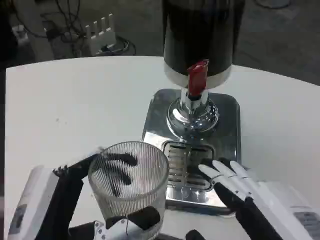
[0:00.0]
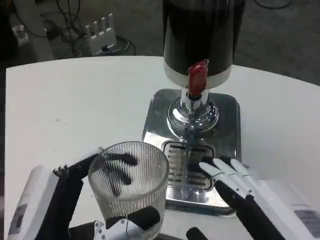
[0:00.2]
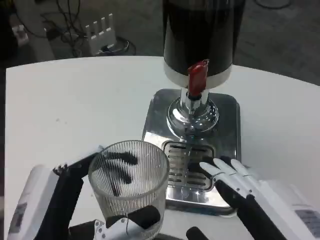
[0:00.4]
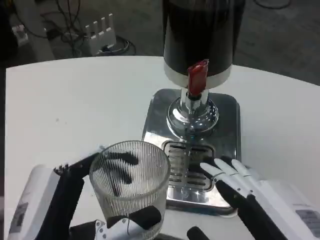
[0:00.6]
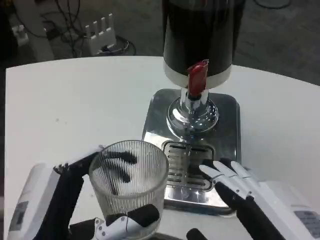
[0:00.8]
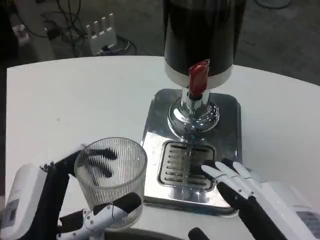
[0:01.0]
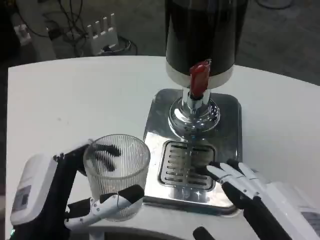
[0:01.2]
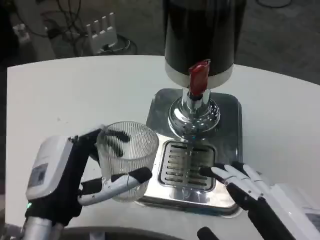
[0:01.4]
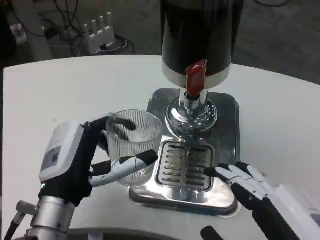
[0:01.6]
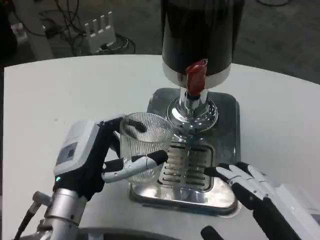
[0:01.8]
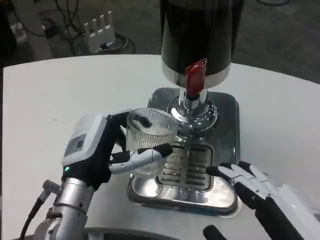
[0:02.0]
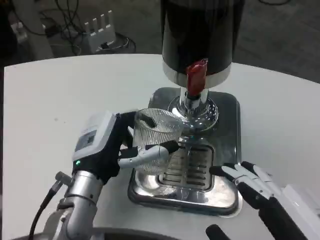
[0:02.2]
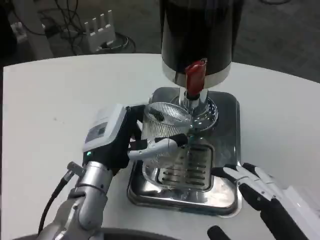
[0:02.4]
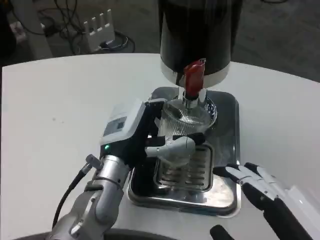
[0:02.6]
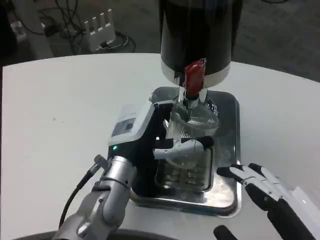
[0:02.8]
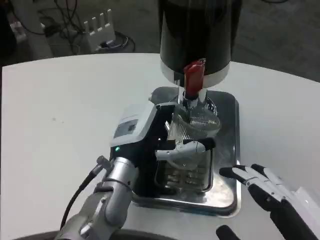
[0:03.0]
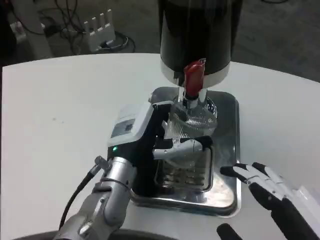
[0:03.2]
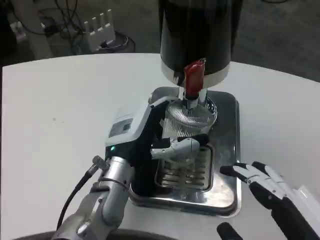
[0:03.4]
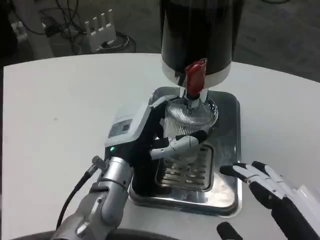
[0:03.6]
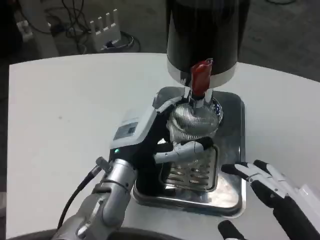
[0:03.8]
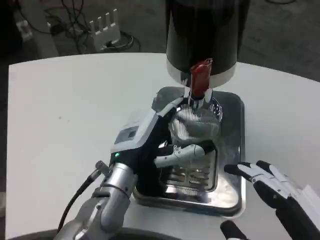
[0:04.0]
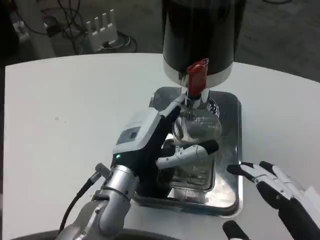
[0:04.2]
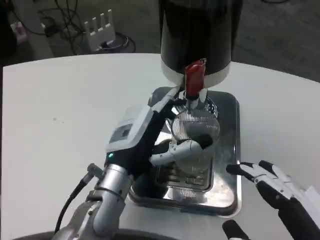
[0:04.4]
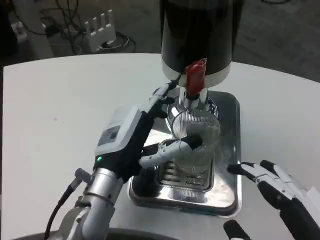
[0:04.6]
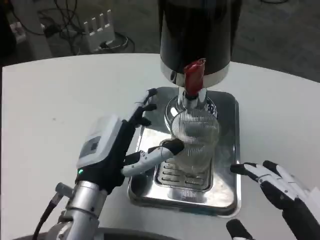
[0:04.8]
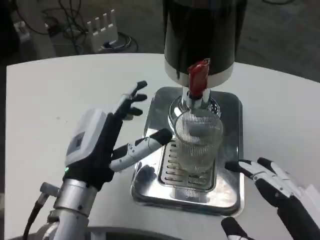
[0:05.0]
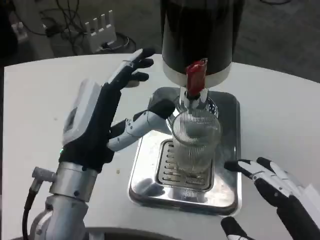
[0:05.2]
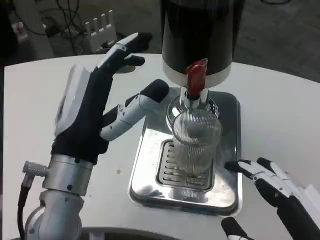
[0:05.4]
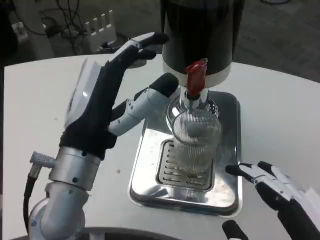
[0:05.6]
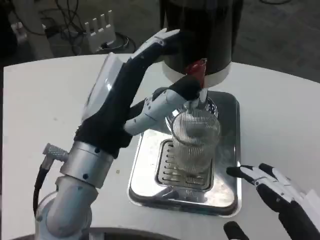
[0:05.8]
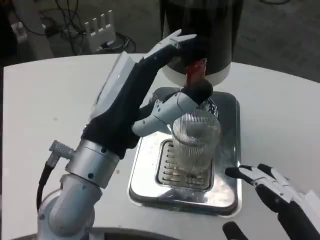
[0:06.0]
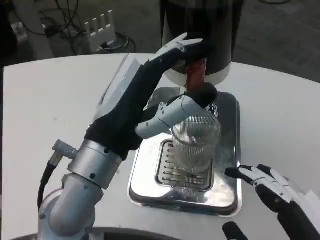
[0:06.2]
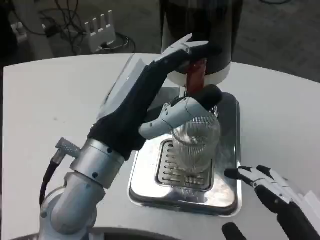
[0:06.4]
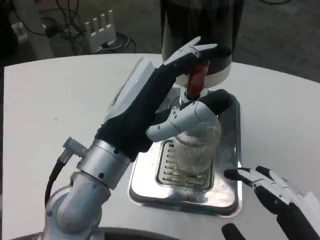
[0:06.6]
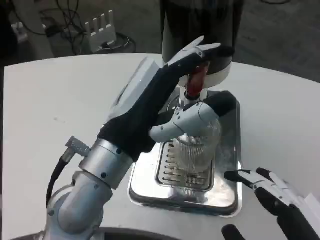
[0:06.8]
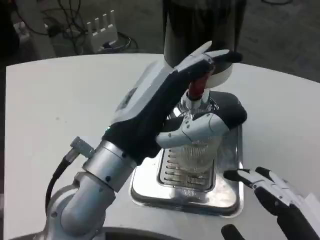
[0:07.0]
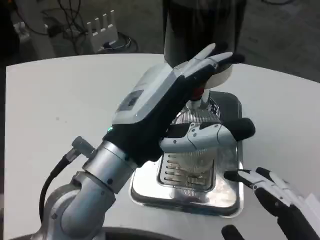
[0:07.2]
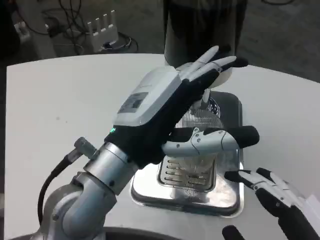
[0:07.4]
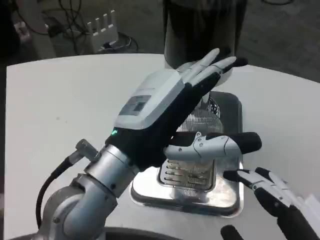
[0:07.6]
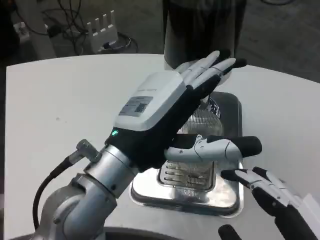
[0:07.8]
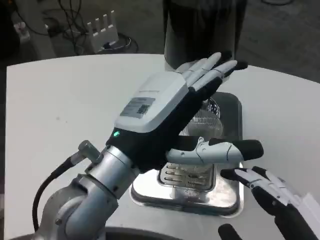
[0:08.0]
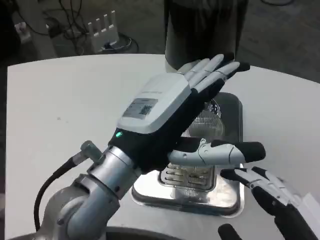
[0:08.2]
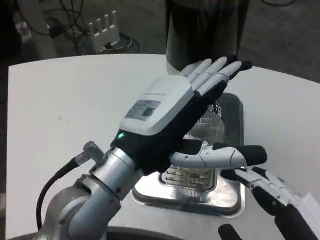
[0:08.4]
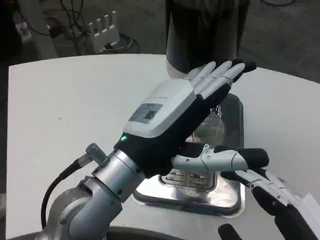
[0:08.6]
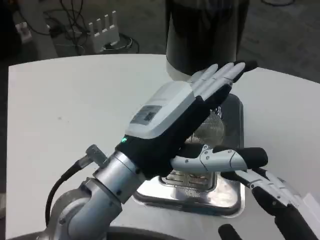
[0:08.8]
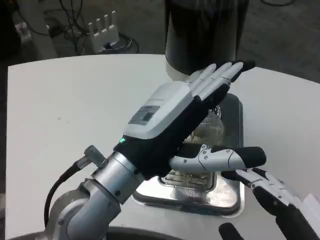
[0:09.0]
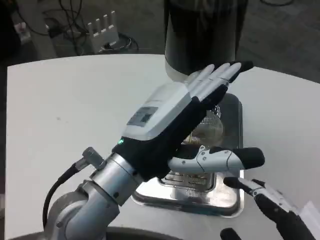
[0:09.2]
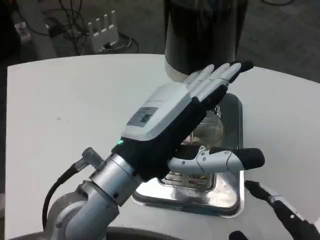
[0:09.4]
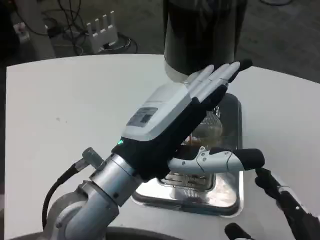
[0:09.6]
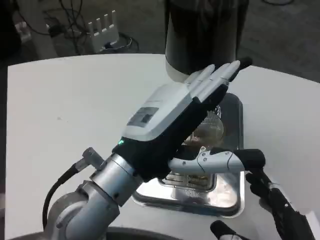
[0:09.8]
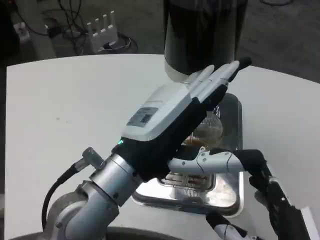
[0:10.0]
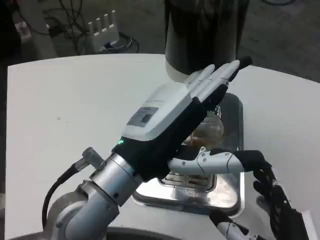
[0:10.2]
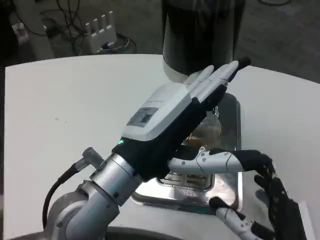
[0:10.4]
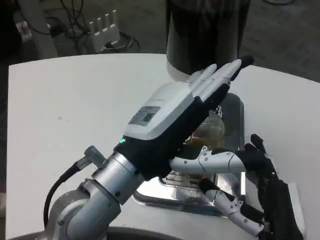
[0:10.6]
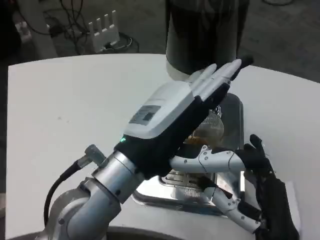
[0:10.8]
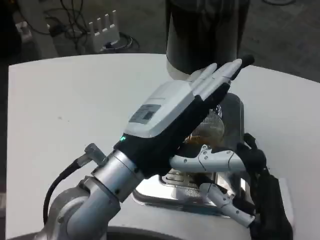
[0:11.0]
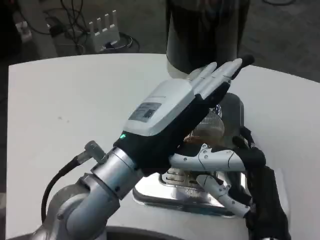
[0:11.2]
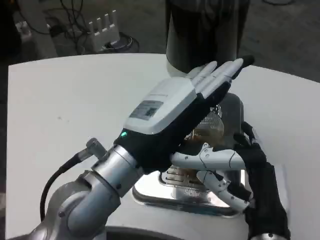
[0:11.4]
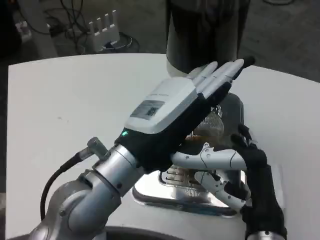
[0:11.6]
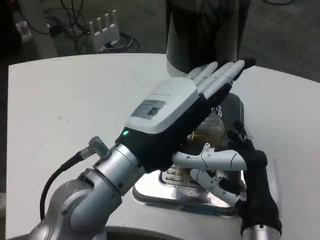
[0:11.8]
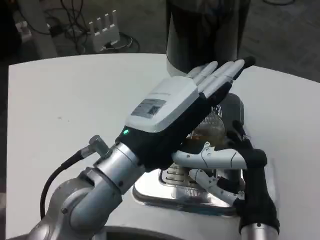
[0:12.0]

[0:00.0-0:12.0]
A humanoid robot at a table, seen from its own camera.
Task of the whole recording: Grasp the cup under the faucet to collect the drink, then remove the cup.
0.0 to 1.6 s: The left hand heads forward, covering roughly 10 cm.
1.6 to 3.0 s: The left hand shifts approximately 10 cm to the right and forward.
3.0 to 4.4 s: The hands make only small movements.
4.4 to 6.0 s: The left hand goes some 10 cm upward and backward.
9.0 to 10.4 s: The right hand shifts some 10 cm forward and downward.
10.4 to 12.0 s: The right hand is displaced forward by approximately 5 cm.

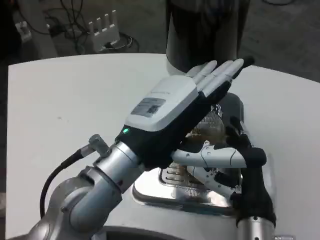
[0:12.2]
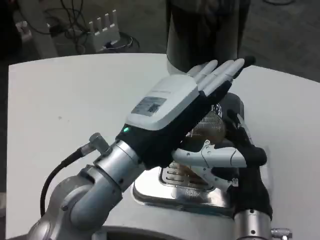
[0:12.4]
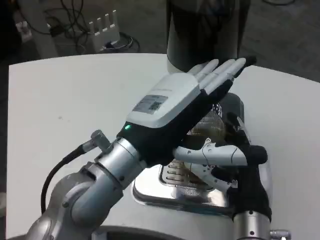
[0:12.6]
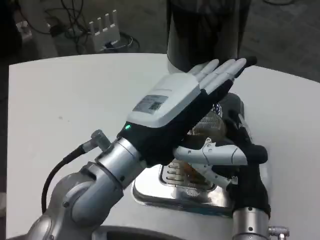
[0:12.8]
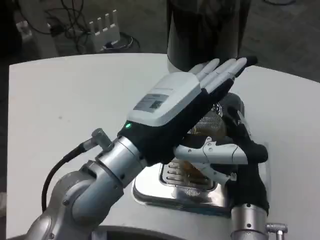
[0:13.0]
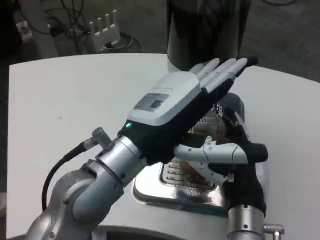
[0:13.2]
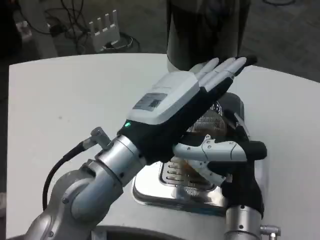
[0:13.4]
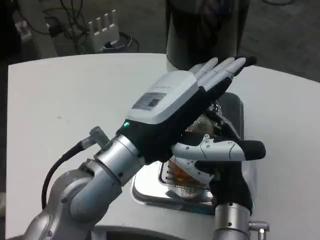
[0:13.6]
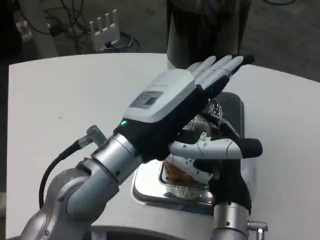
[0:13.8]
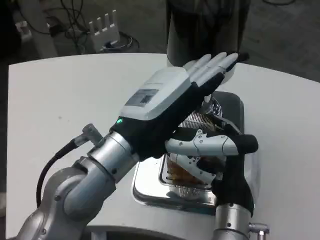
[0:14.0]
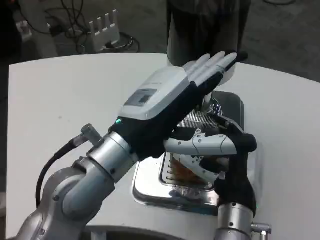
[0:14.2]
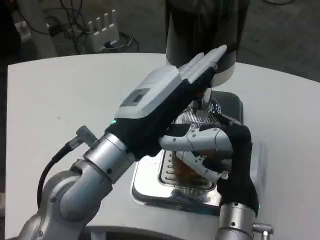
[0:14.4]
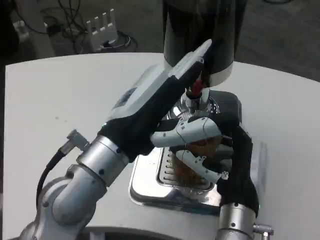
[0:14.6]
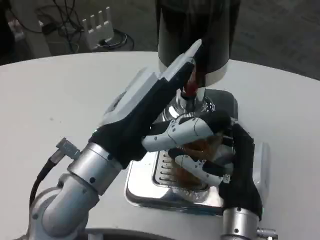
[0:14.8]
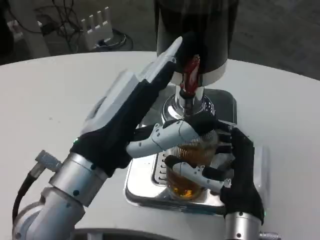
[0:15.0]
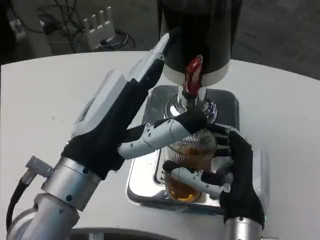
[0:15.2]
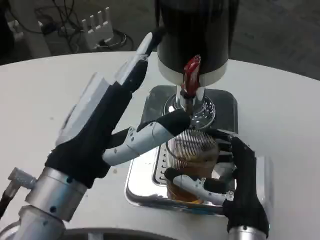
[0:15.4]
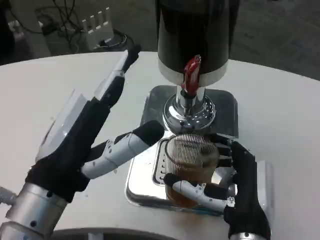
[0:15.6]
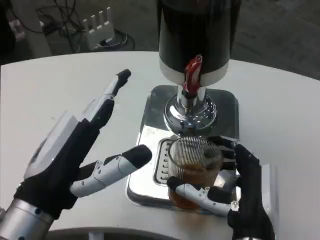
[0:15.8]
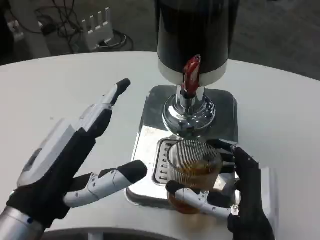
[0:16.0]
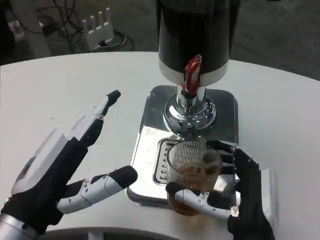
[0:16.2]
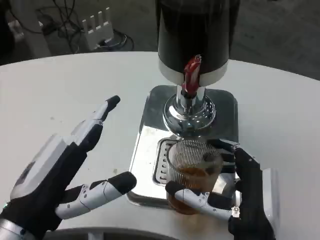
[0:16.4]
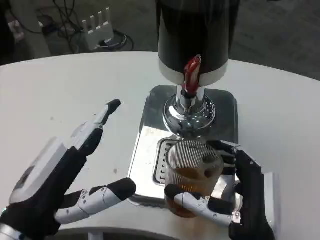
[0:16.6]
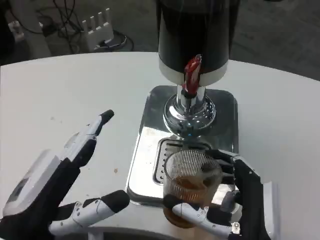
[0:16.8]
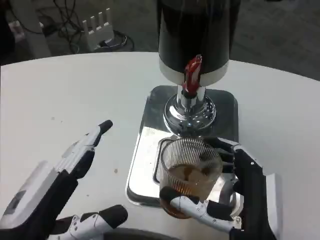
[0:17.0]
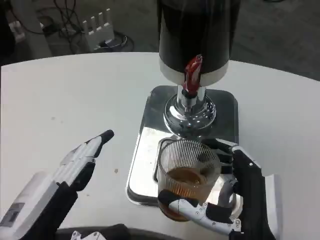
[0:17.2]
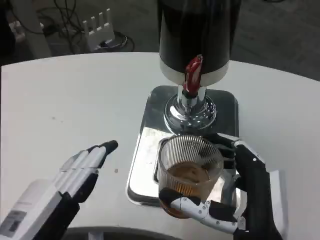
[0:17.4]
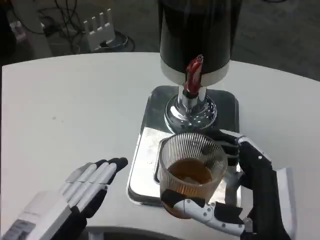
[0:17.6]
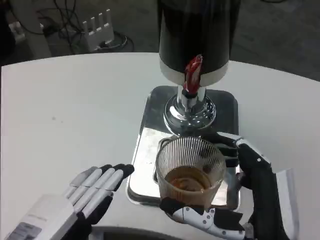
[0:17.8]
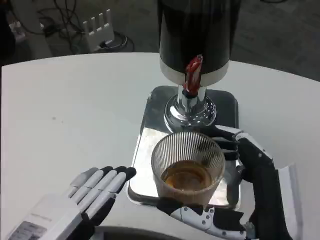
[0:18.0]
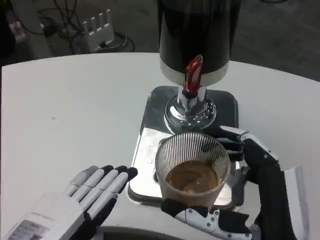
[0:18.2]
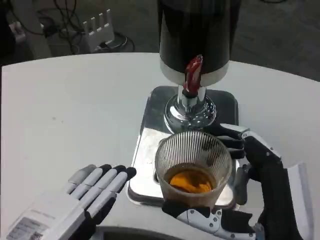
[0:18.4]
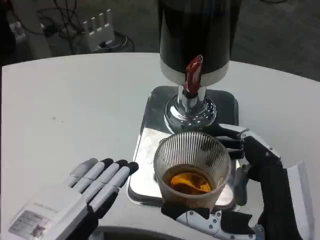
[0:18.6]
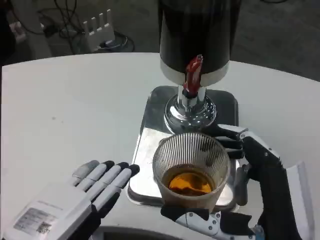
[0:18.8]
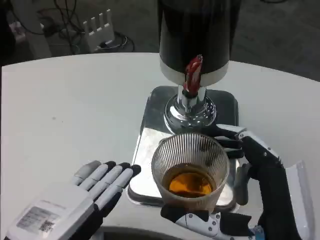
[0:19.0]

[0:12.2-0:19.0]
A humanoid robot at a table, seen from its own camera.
Task of the whole recording: Grasp the cup under the faucet to collect the drink, then remove the cup.
12.2 to 13.6 s: The hands make only small movements.
15.0 to 16.2 s: The left hand shifts about 10 cm to the left and downward.
16.2 to 17.6 s: The left hand ends up about 5 cm from where it was.
17.6 to 19.0 s: There are only small adjustments of the hands.

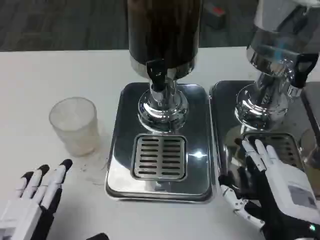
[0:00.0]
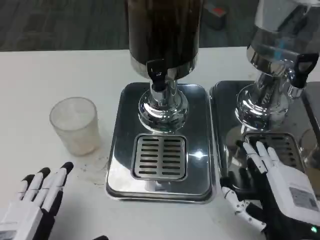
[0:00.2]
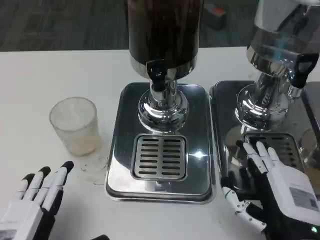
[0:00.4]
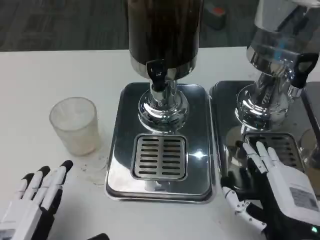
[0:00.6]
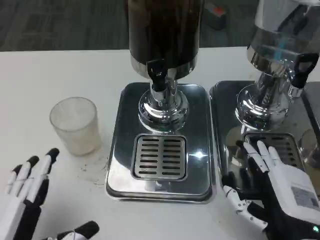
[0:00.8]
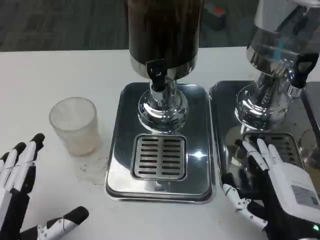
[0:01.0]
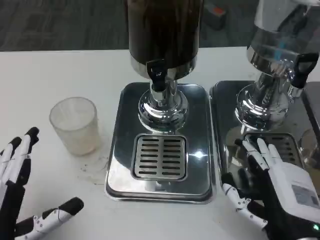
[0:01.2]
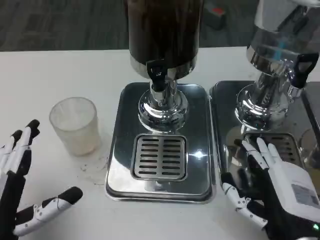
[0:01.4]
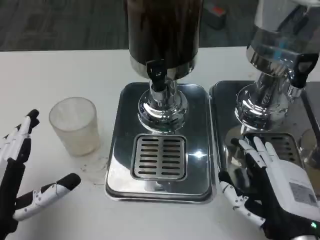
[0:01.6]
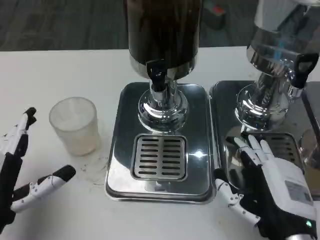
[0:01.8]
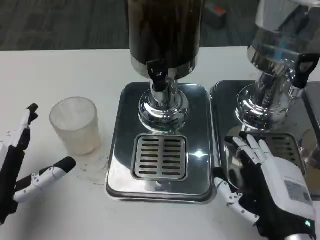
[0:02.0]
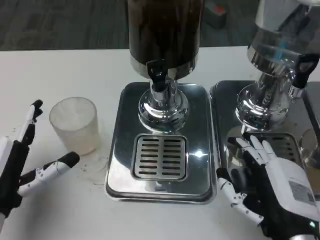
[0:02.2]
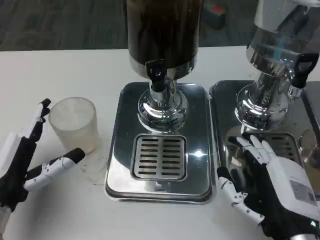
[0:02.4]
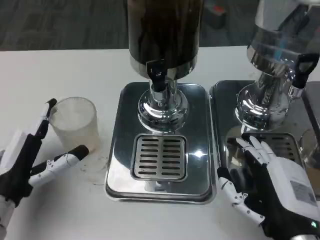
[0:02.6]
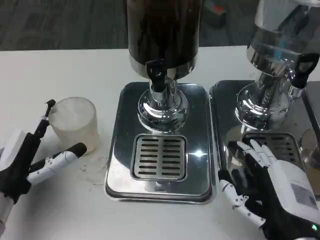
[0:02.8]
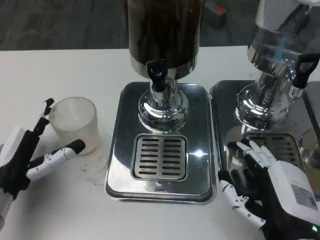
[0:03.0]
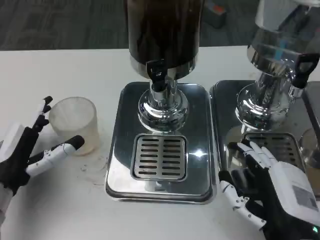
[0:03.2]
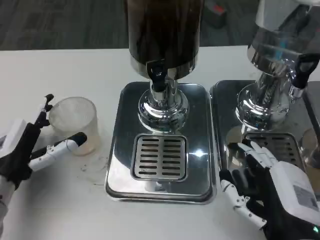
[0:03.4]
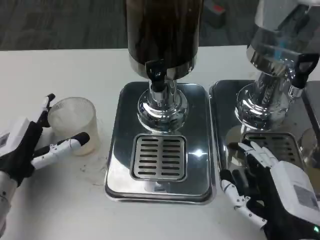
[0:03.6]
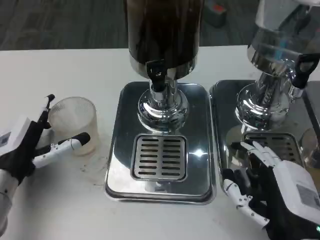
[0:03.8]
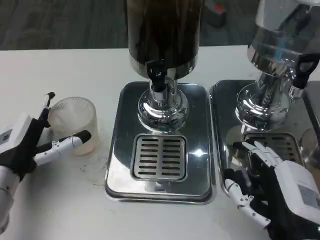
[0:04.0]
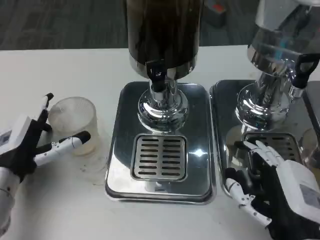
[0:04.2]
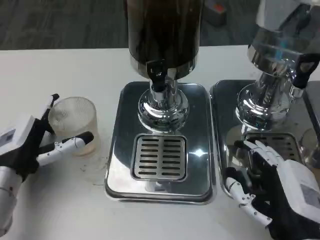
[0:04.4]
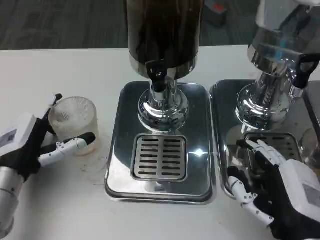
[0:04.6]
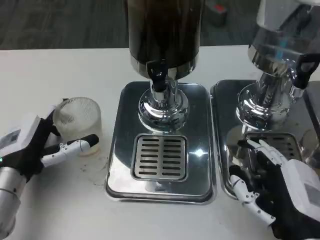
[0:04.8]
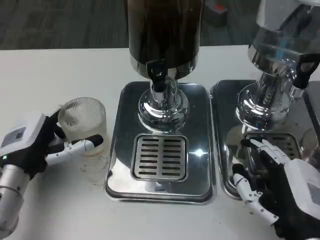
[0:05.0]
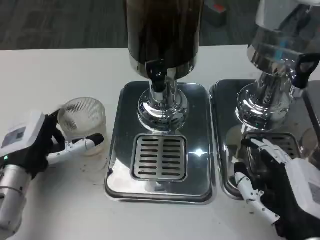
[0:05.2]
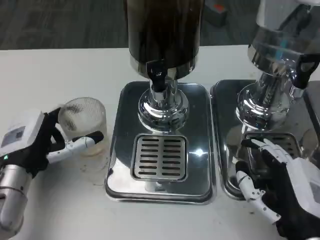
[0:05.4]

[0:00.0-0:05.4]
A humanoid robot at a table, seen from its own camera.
Task of the whole recording: Grasp the cup under the faucet to collect the drink, then remove the cup.
0.0 to 1.4 s: The hands stay close to where they were, moving slightly.
1.4 to 2.8 s: The left hand travels forward by about 10 cm.
2.8 to 5.4 s: The hands make only small movements.
